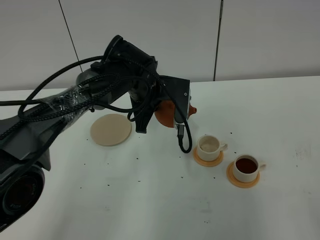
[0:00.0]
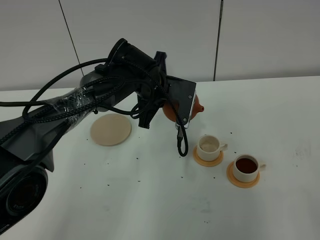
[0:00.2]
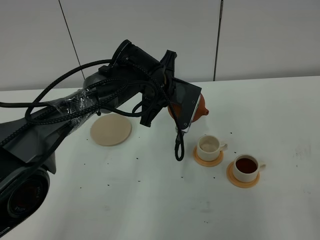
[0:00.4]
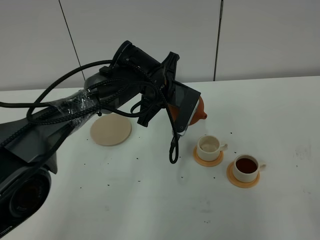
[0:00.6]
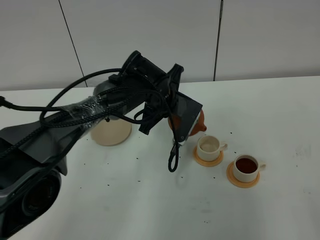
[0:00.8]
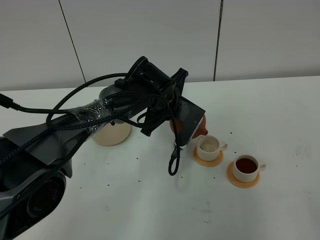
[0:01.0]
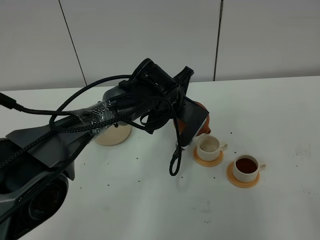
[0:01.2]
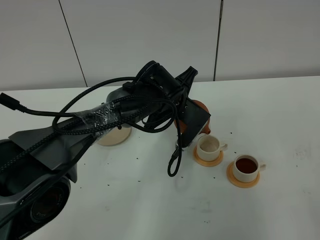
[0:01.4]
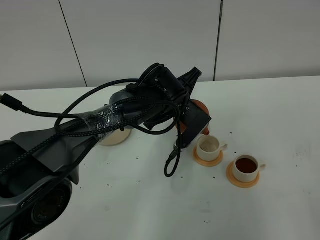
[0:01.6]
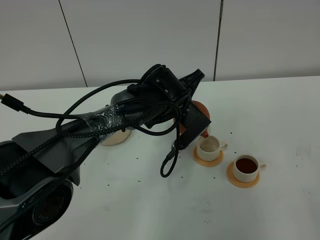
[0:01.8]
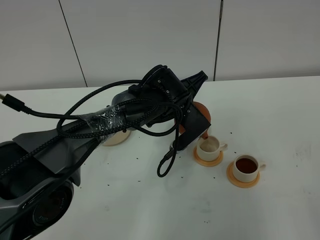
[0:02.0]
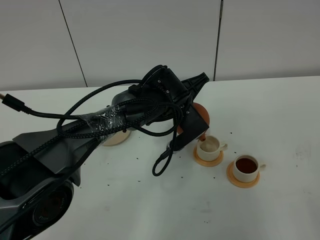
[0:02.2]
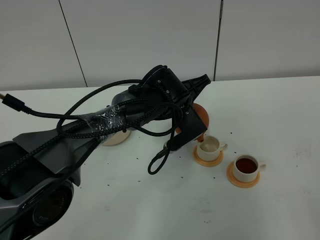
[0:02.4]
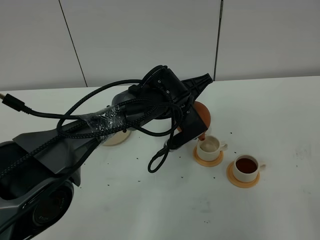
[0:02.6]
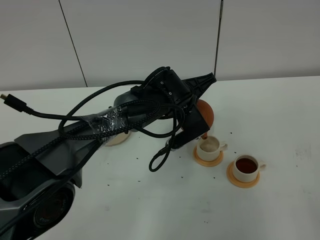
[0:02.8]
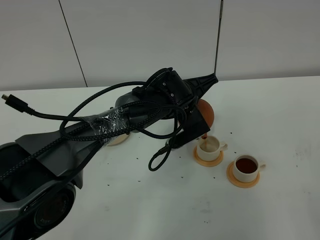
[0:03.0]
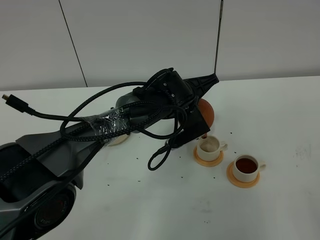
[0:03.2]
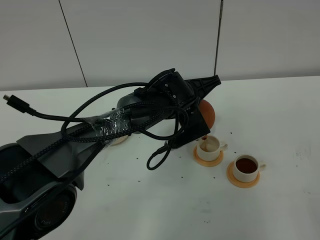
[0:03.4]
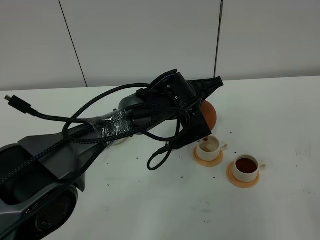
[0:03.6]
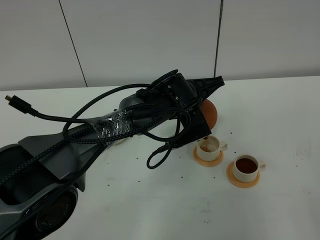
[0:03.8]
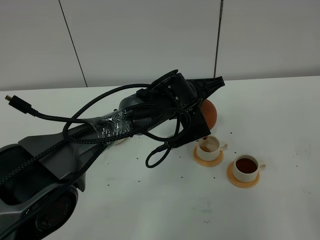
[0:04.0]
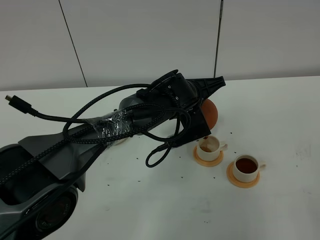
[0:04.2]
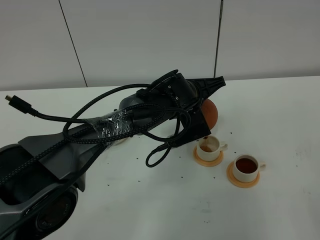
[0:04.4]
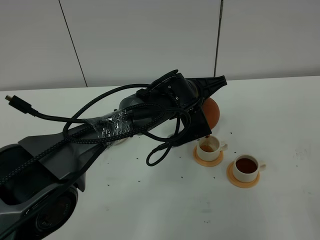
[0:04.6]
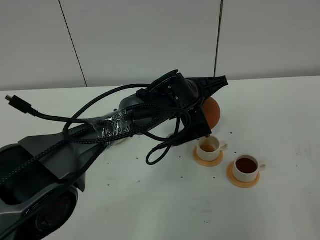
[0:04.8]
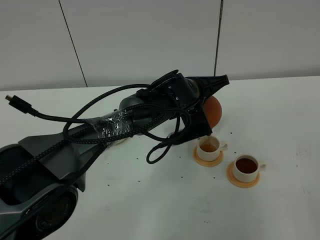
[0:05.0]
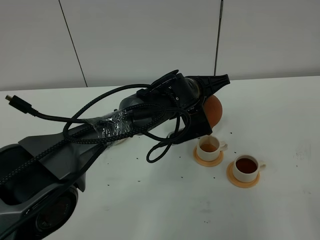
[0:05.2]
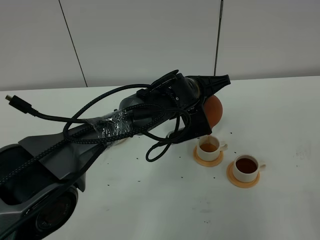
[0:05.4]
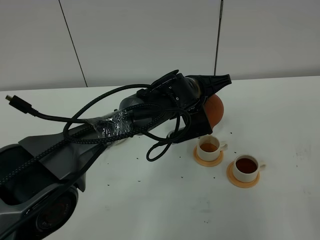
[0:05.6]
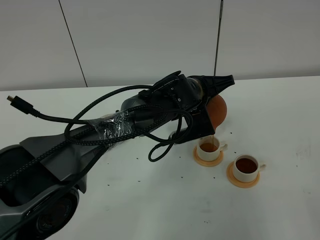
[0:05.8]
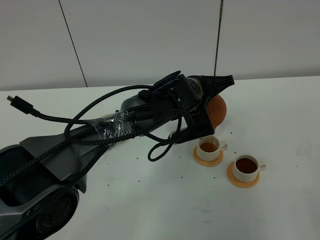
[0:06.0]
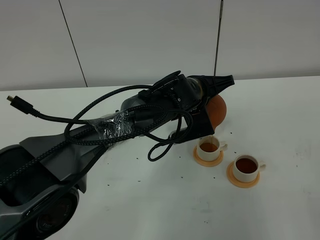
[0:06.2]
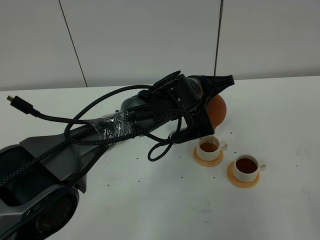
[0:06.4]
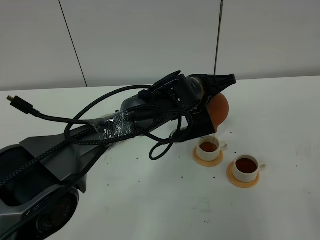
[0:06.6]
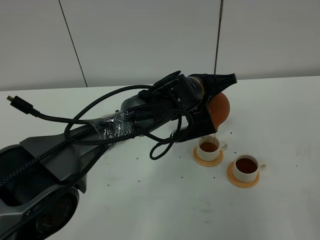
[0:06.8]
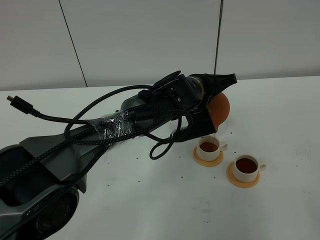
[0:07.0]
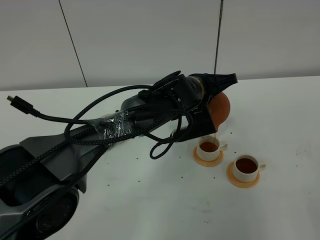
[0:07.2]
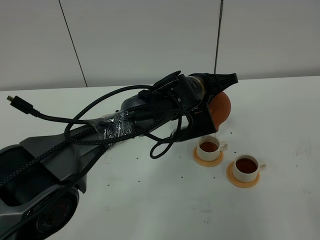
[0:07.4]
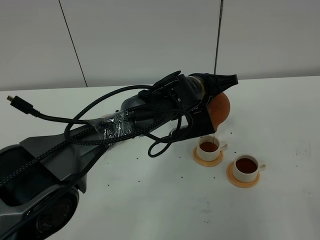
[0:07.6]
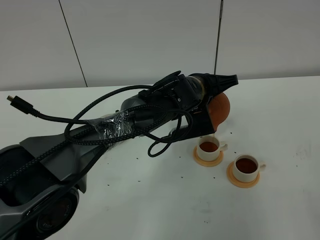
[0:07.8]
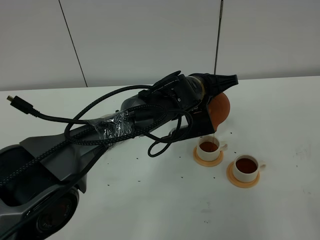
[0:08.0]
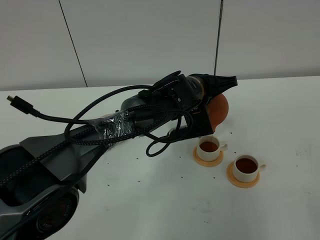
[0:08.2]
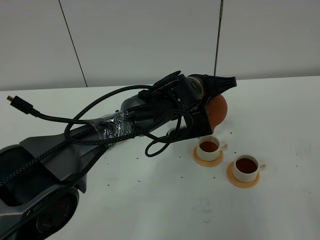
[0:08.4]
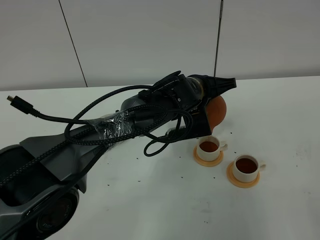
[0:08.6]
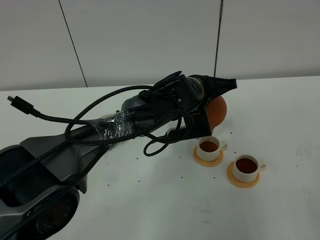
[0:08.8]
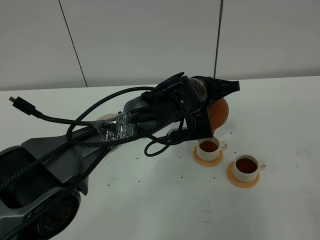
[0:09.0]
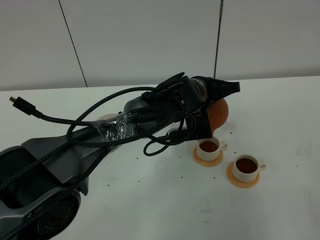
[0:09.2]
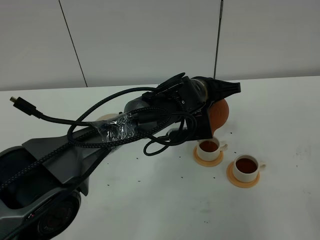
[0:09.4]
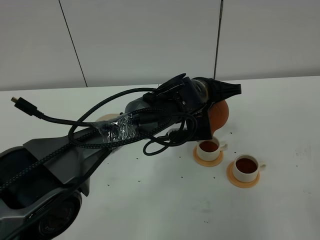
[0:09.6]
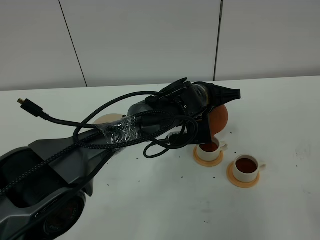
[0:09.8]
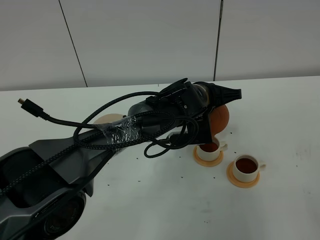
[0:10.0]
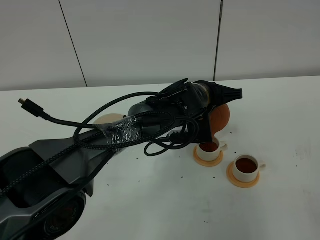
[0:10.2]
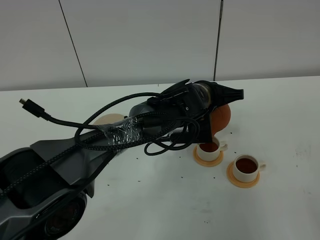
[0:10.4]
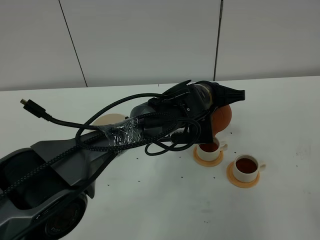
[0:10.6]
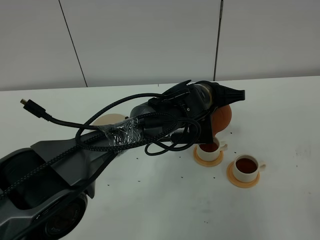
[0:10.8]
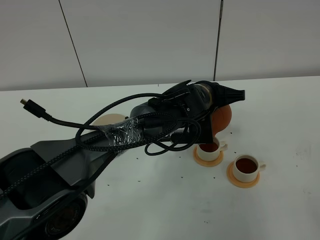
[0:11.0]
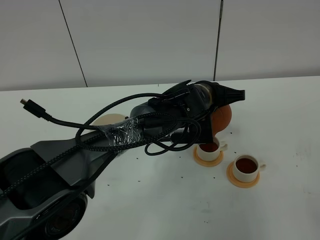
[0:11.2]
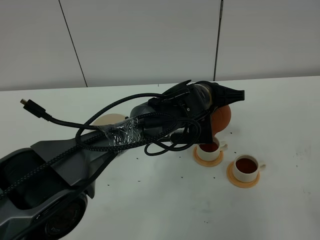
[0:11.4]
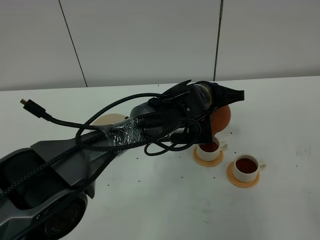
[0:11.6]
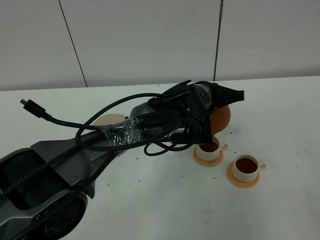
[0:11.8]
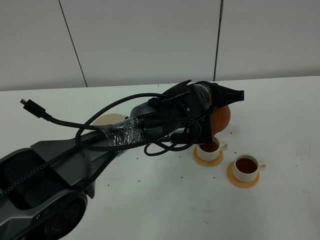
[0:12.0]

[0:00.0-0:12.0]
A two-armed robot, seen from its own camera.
Task of the whole recording: grasp the brown teapot and pour the tea into the two white teacups one by one, put the brown teapot back in its original place.
0:00.0 to 0:01.6: The left gripper goes some 5 cm to the right.
0:03.0 to 0:06.0: The grippers make only small movements.
0:06.0 to 0:07.6: Both grippers stay put.
0:07.6 to 0:10.4: The grippers stay close to where they were, moving slightly.
0:10.4 to 0:12.0: Both grippers stay put.

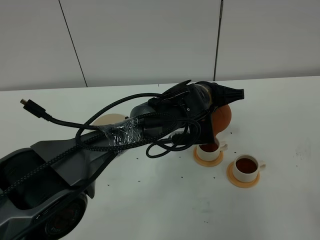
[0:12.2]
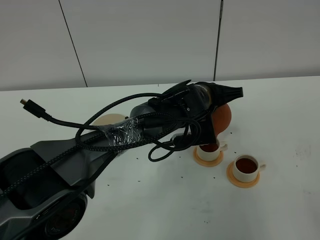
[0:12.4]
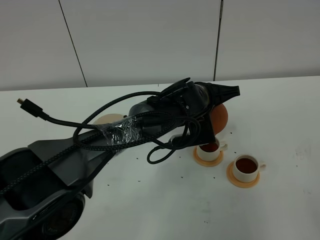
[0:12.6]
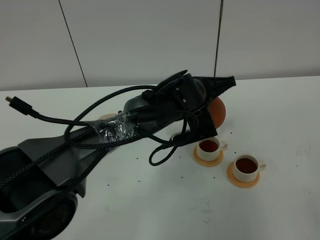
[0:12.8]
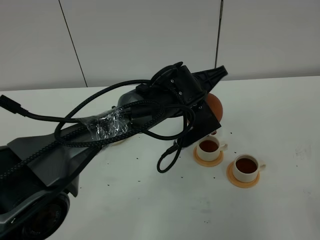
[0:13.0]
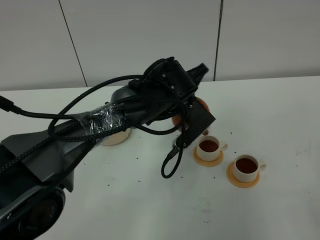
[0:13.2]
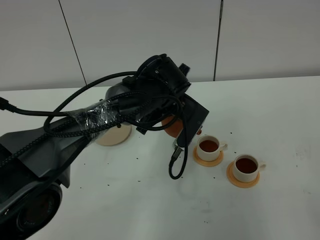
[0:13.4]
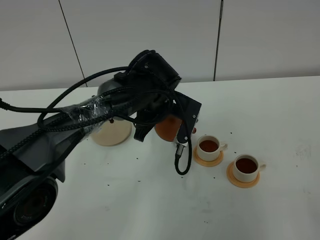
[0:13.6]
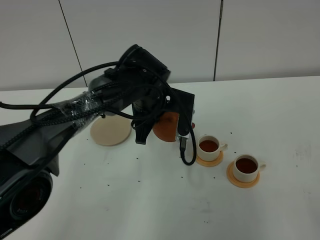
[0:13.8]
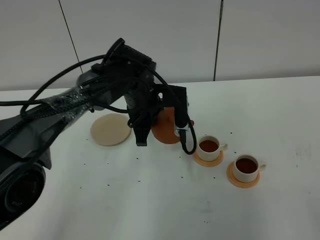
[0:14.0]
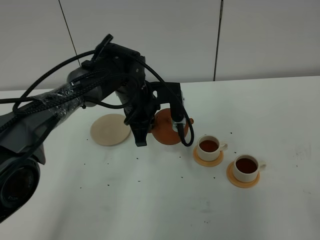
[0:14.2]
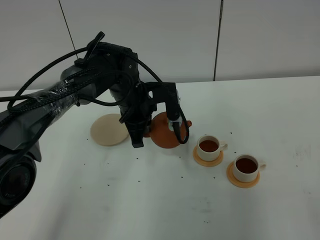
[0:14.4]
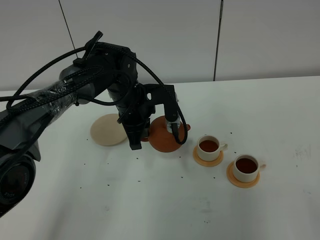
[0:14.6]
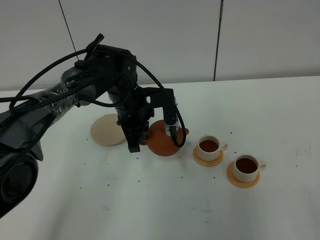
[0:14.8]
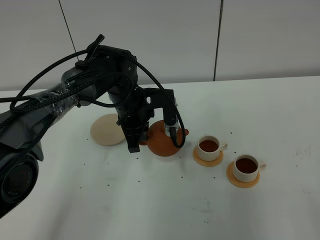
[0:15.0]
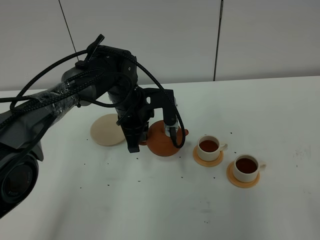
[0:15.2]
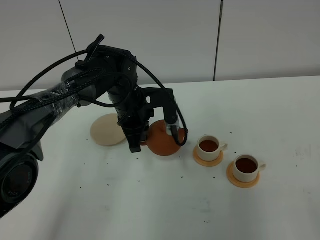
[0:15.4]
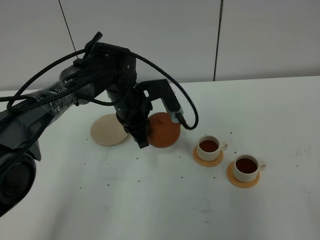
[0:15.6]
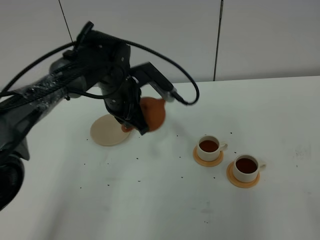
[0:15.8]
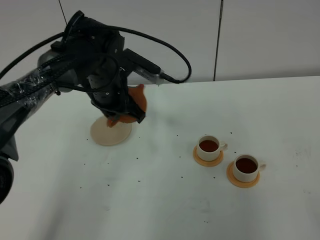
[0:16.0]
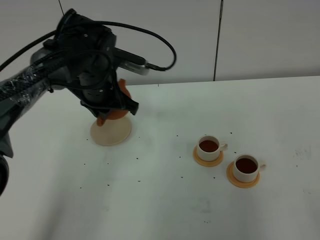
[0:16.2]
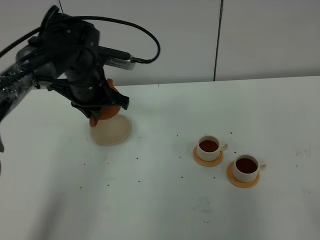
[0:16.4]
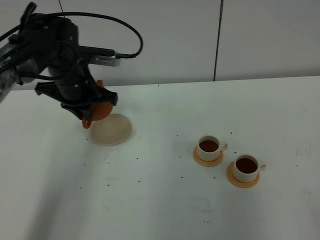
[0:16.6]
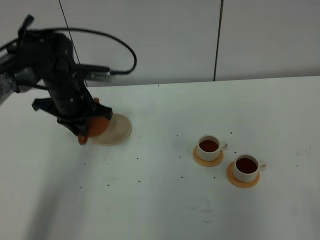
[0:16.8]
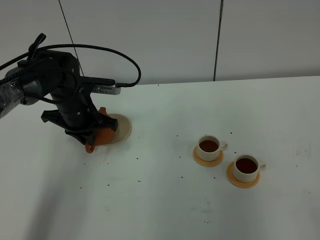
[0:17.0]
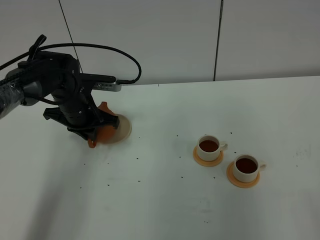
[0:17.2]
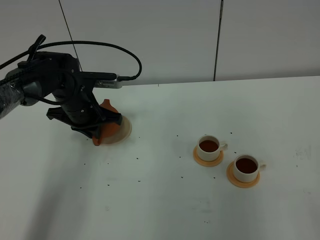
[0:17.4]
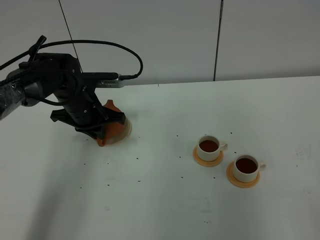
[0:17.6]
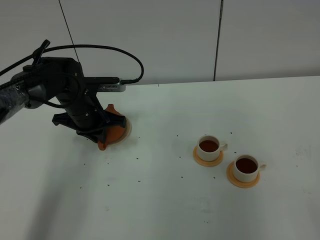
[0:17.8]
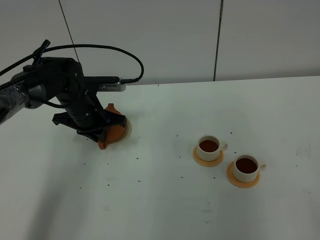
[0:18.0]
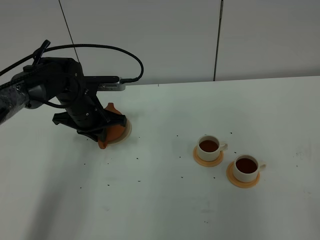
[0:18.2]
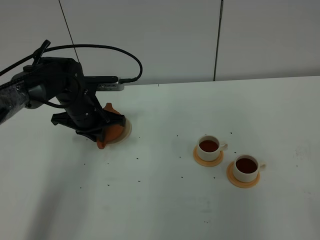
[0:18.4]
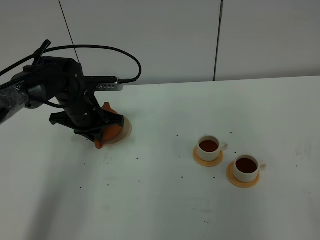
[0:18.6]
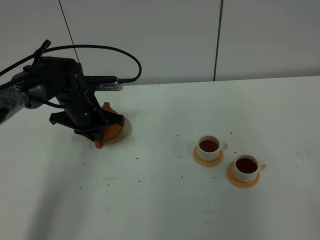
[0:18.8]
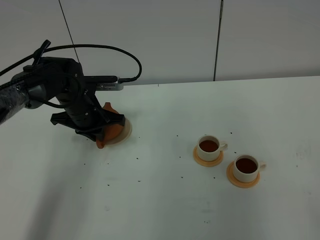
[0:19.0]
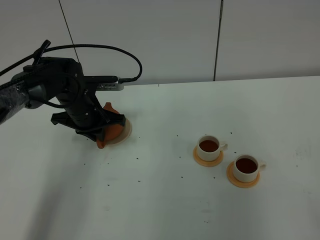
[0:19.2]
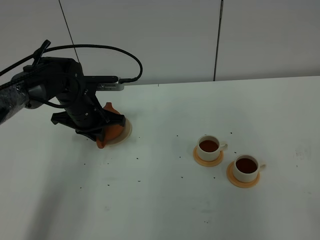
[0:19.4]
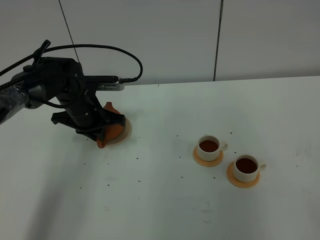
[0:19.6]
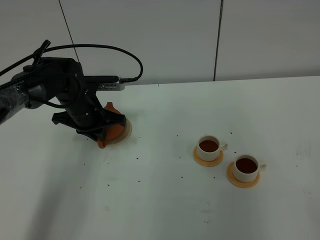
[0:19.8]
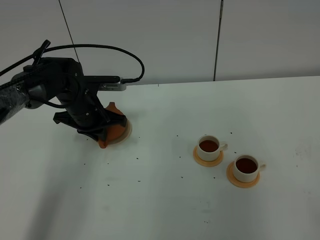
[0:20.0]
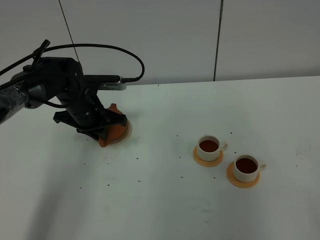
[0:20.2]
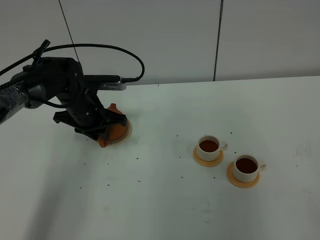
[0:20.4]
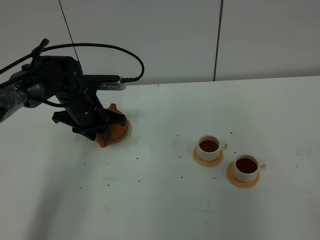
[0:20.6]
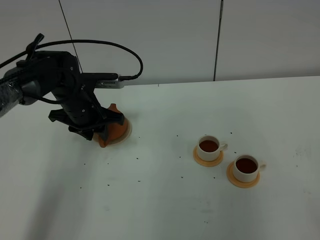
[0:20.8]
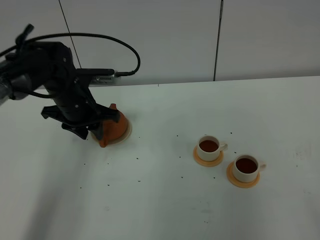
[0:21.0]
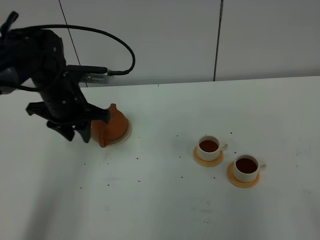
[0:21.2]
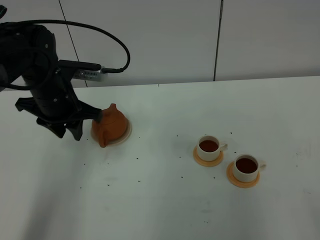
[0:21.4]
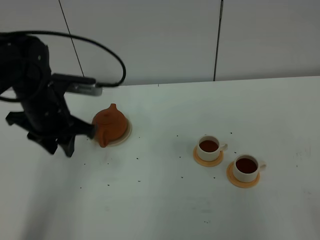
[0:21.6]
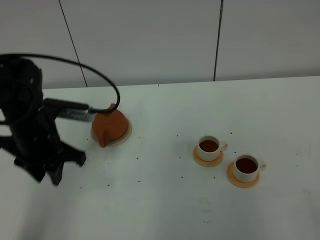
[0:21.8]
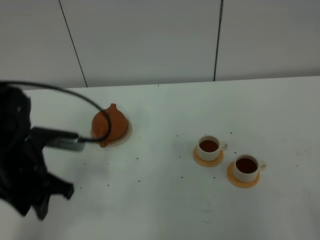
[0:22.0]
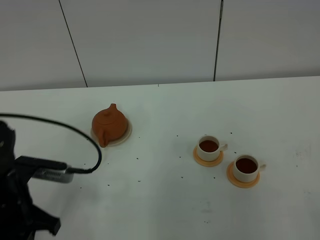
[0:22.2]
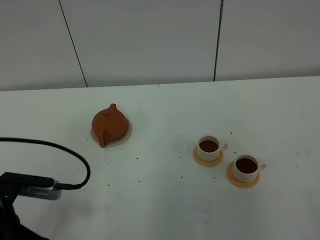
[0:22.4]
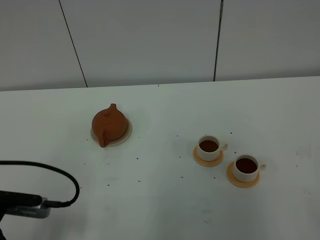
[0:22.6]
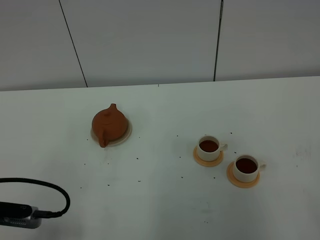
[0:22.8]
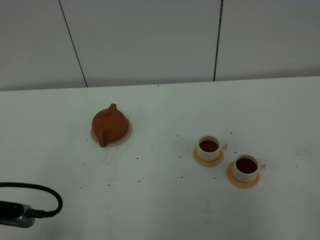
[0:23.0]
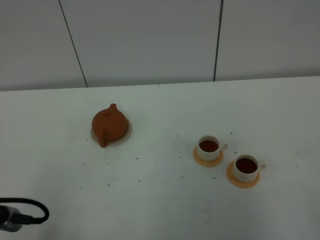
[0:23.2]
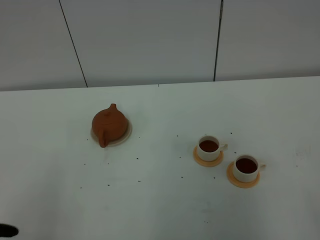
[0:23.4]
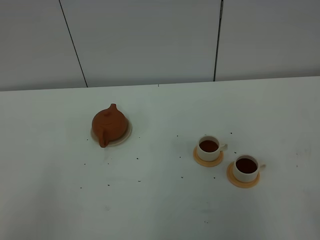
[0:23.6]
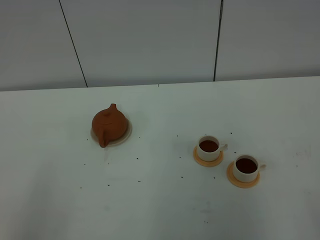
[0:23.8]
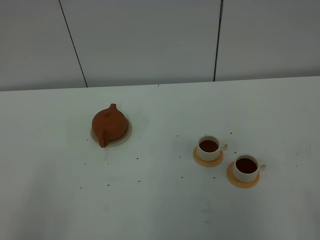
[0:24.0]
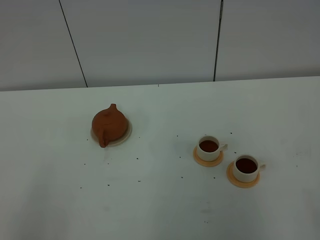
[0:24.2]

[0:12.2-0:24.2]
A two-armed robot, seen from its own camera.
Task of the whole recording: grasp the brown teapot and pour the tea into the two white teacups one by one, put the brown teapot back in its original place.
0:12.2 to 0:13.8: The left gripper heads to the left, covering about 10 cm.
0:15.2 to 0:16.6: The left gripper travels to the left and upward by roughly 10 cm.
0:16.6 to 0:18.2: The left gripper goes about 10 cm downward.
0:18.2 to 0:19.8: Neither gripper changes place.
0:19.8 to 0:21.2: The left gripper moves upward, approximately 5 cm, and opens up.
0:21.2 to 0:22.6: The left gripper moves backward, about 25 cm.
0:22.6 to 0:24.2: The left gripper heads backward and upward, covering approximately 15 cm.
